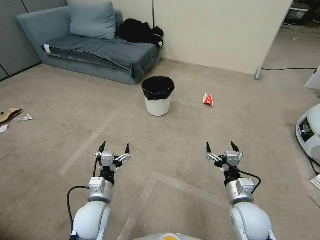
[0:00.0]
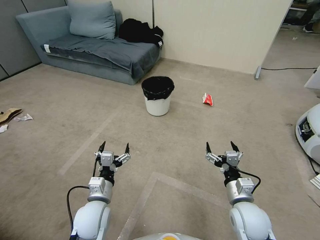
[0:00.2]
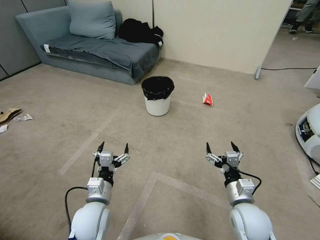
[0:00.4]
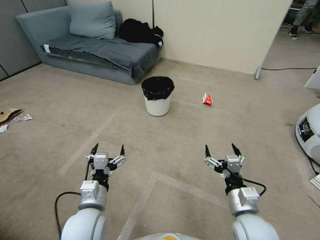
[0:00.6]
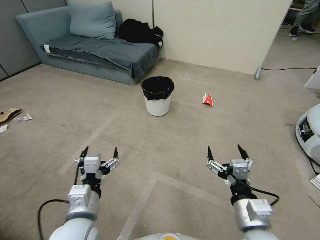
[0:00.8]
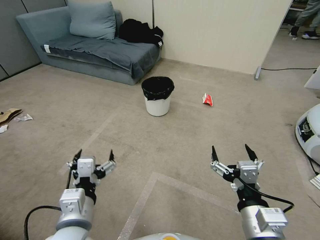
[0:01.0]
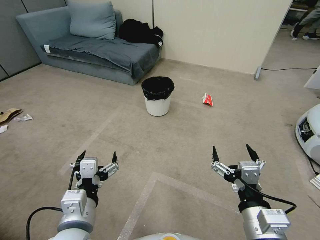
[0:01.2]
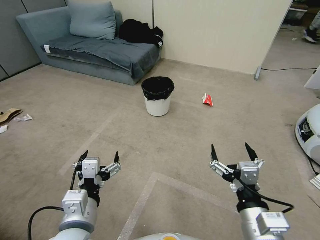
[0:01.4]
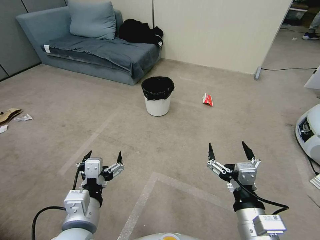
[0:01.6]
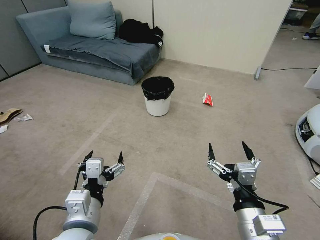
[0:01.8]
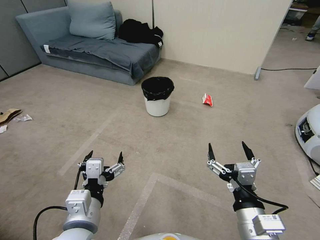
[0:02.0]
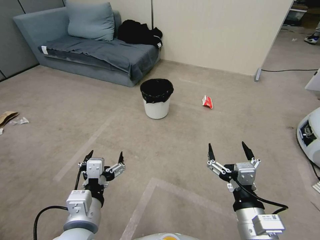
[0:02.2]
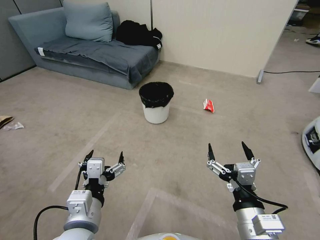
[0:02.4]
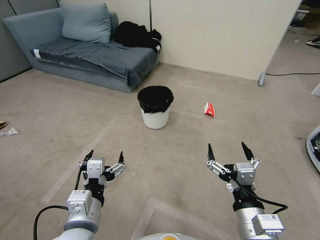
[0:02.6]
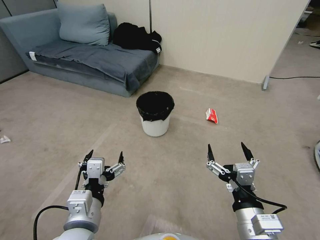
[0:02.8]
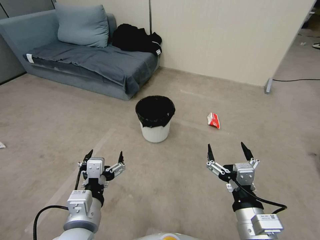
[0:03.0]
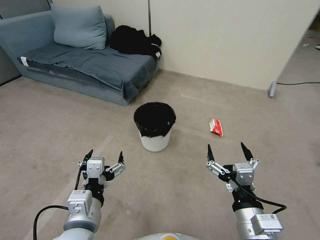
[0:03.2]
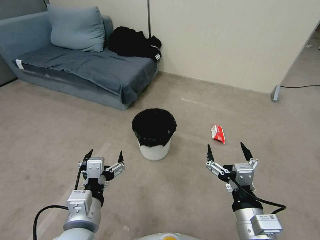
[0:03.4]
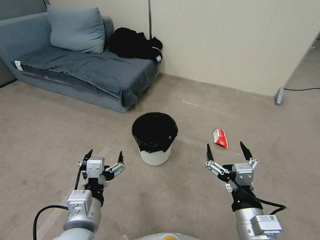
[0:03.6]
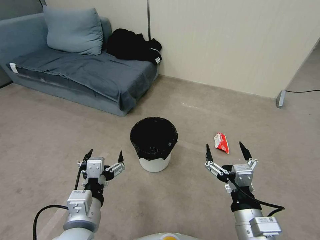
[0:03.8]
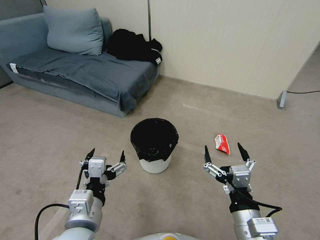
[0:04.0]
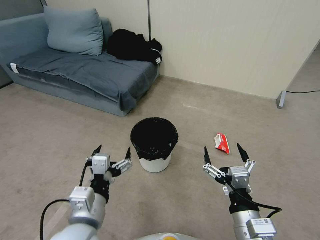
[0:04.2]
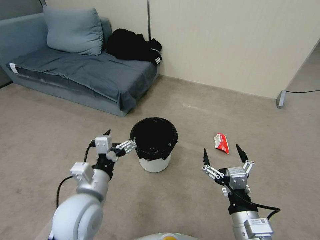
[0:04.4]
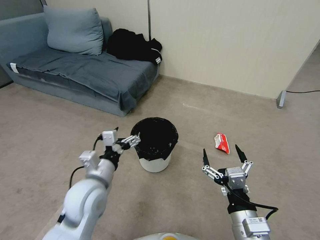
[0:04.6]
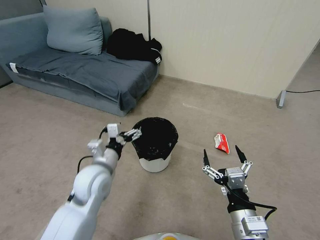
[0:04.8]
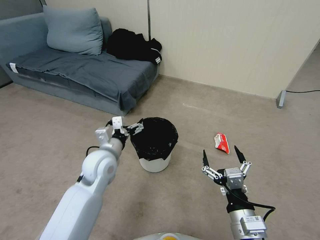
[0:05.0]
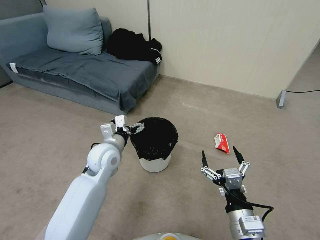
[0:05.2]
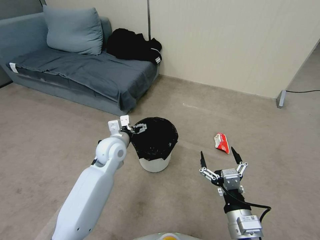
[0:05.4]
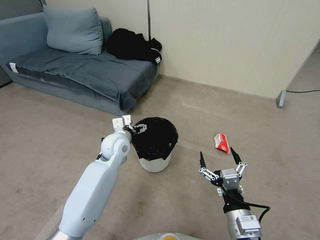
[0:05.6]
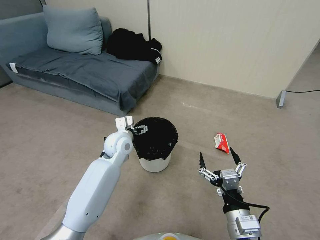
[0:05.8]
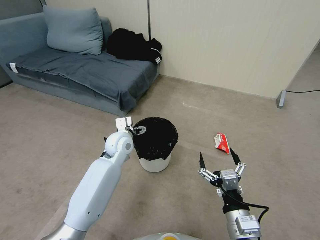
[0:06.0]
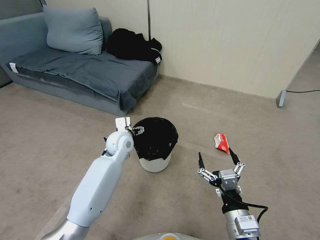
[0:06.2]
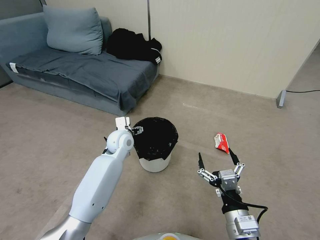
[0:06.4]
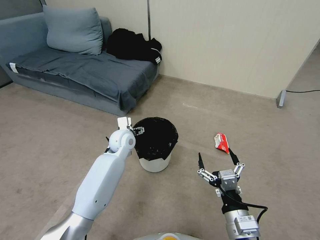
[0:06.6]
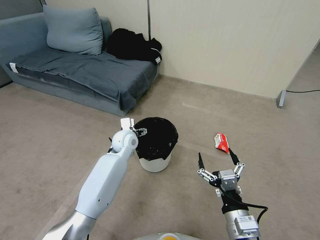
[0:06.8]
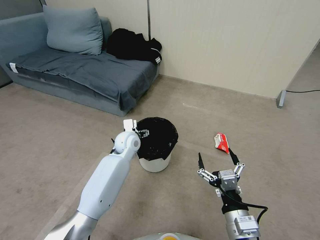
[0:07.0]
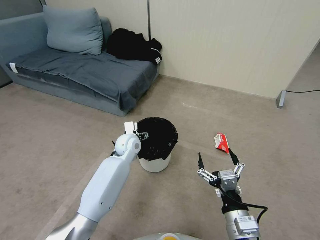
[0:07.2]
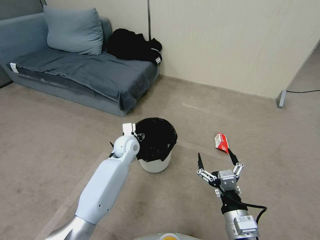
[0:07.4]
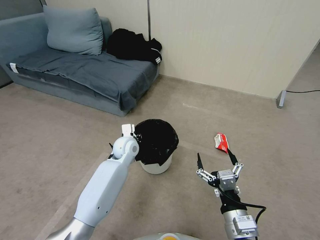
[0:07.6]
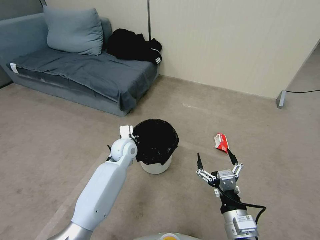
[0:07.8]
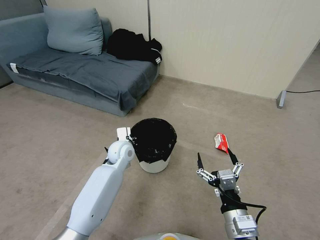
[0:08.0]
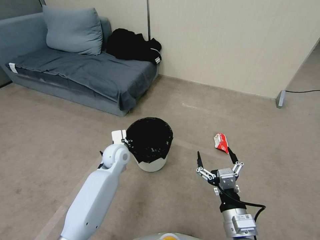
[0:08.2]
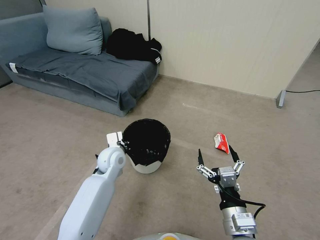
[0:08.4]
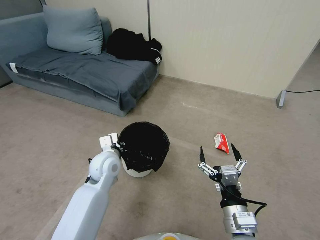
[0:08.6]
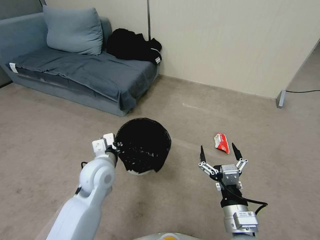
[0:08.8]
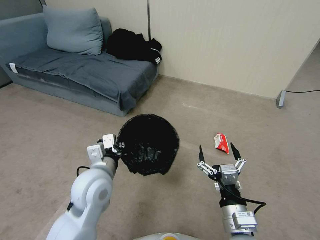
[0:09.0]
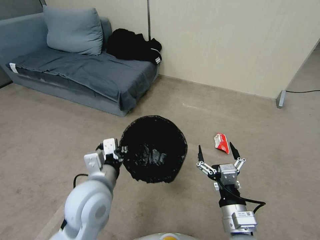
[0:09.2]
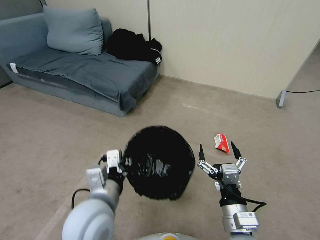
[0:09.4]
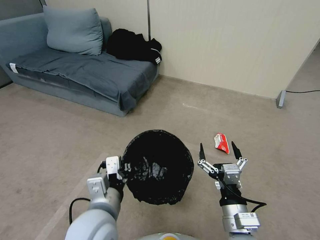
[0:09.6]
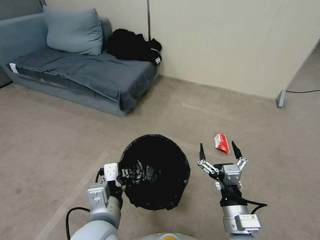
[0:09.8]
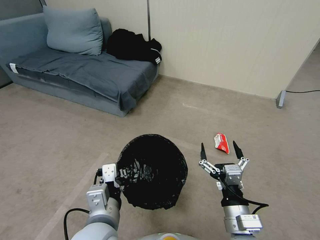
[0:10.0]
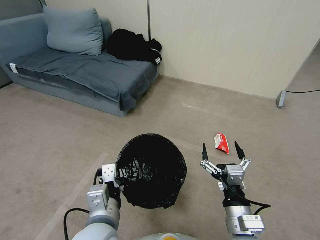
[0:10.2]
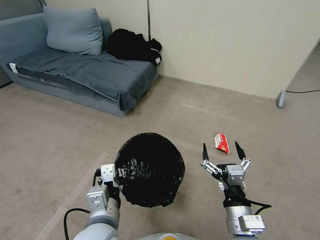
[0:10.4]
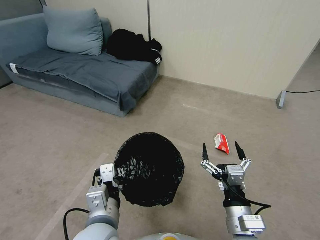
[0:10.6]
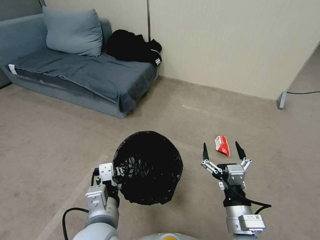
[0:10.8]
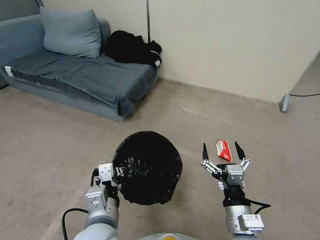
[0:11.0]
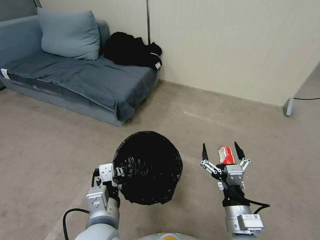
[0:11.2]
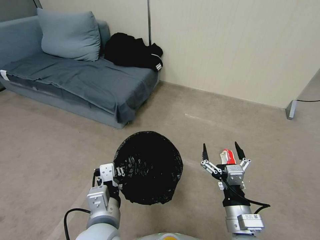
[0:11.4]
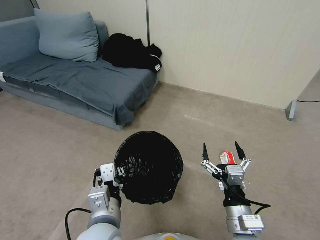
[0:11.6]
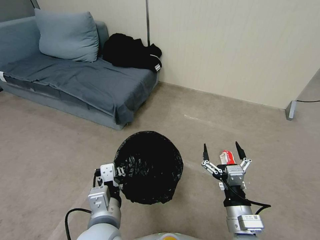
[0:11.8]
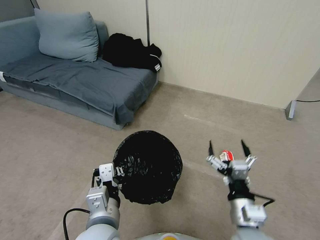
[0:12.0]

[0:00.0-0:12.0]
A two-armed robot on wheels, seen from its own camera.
Task of the whole recording: Pick up the trash bin, then pick up the garbage from the floor and place it into the trash bin.
0:03.0 to 0:04.4: The left gripper heads forward, covering approximately 5 cm.
0:04.4 to 0:06.0: The left gripper shifts approximately 25 cm forward.
0:06.0 to 0:07.6: The left gripper moves approximately 5 cm, and closes its fingers.
0:07.6 to 0:09.0: The left gripper heads backward and upward, covering approximately 20 cm, and closes its fingers.
0:09.0 to 0:10.4: The left gripper goes about 10 cm backward.
0:10.4 to 0:12.0: The grippers make only small movements.

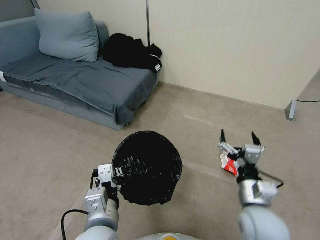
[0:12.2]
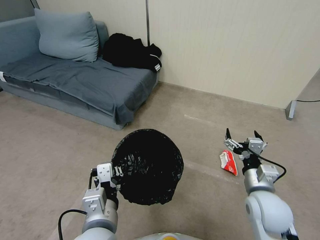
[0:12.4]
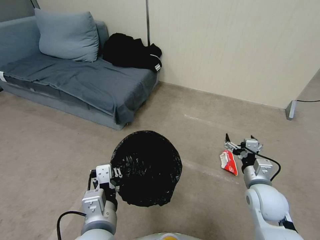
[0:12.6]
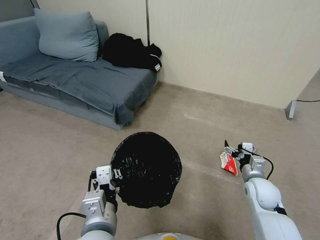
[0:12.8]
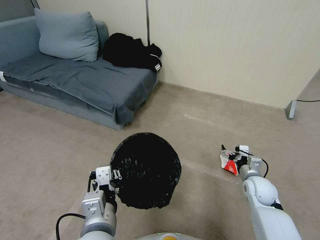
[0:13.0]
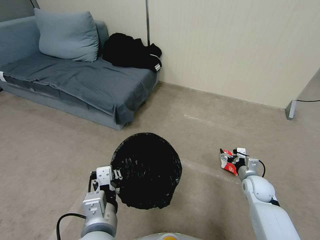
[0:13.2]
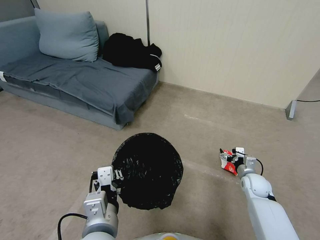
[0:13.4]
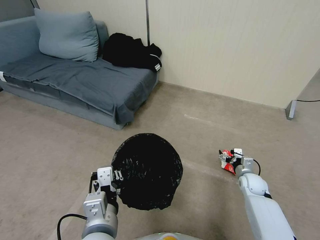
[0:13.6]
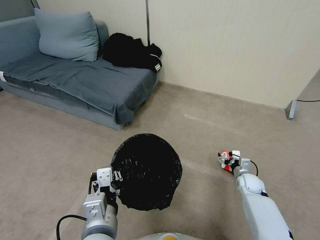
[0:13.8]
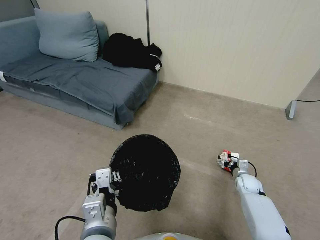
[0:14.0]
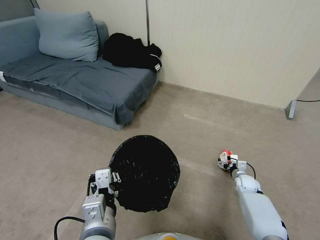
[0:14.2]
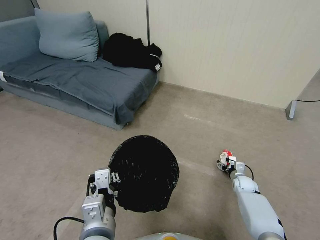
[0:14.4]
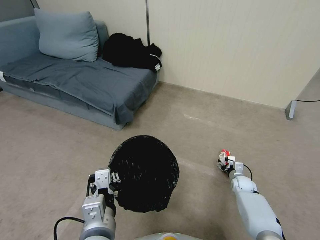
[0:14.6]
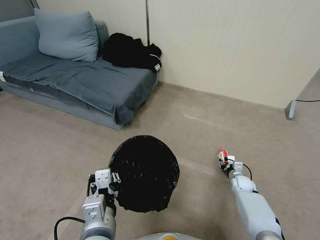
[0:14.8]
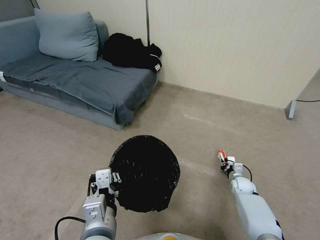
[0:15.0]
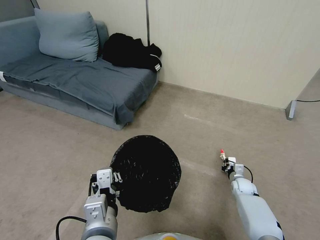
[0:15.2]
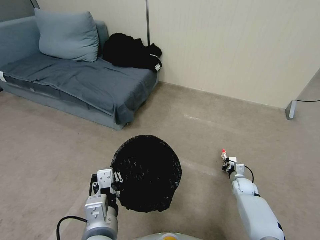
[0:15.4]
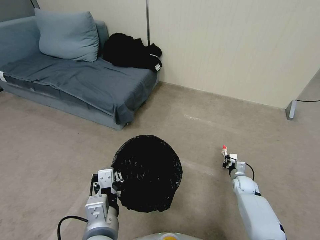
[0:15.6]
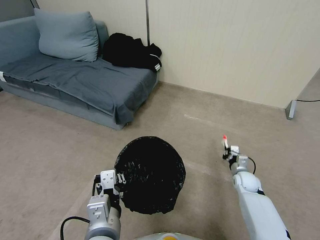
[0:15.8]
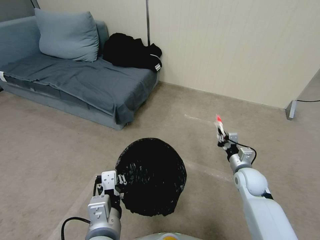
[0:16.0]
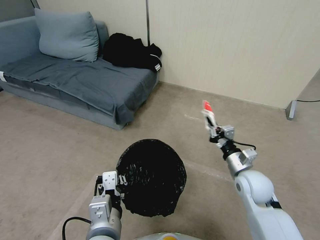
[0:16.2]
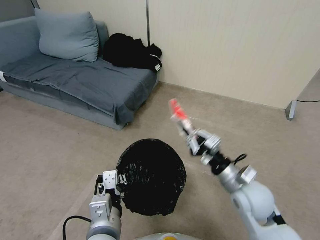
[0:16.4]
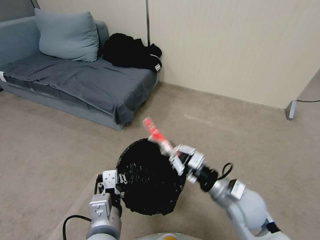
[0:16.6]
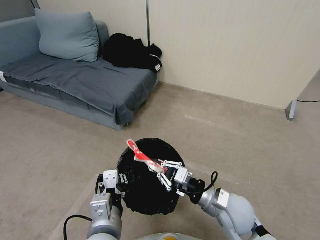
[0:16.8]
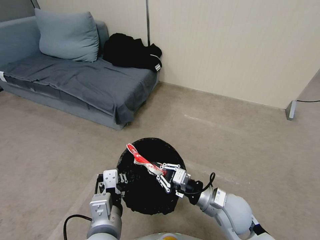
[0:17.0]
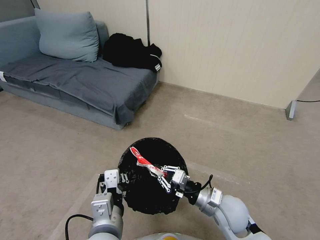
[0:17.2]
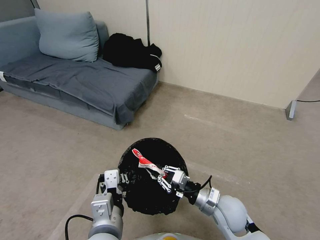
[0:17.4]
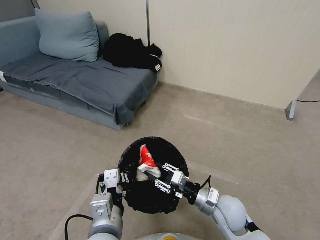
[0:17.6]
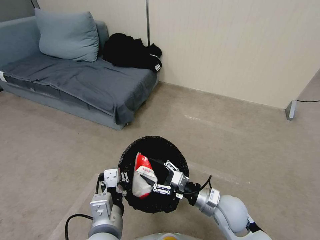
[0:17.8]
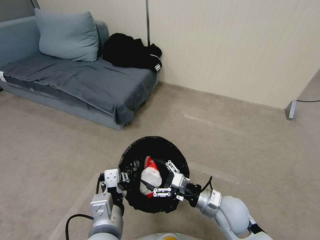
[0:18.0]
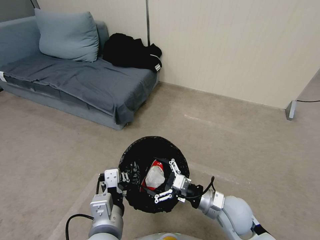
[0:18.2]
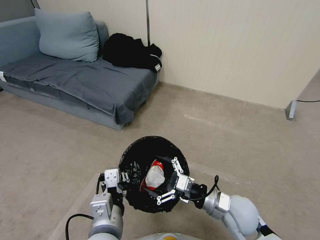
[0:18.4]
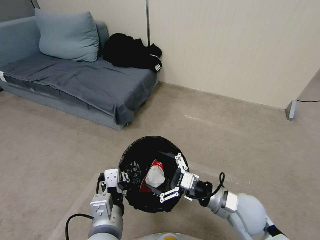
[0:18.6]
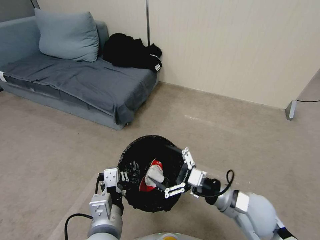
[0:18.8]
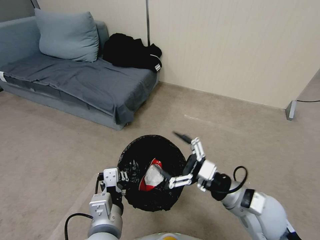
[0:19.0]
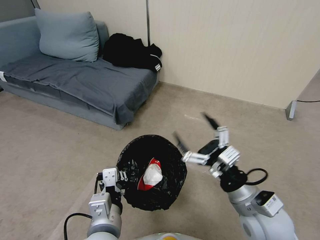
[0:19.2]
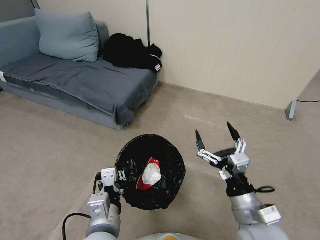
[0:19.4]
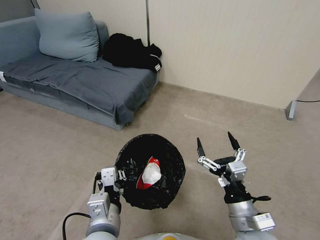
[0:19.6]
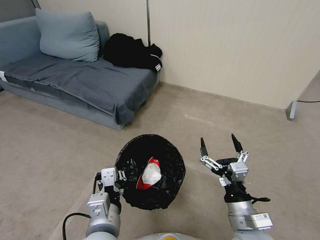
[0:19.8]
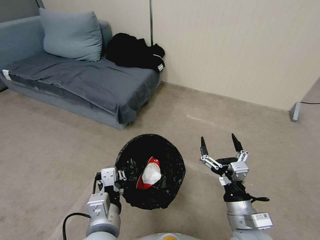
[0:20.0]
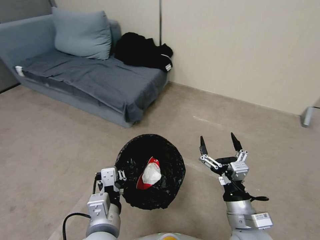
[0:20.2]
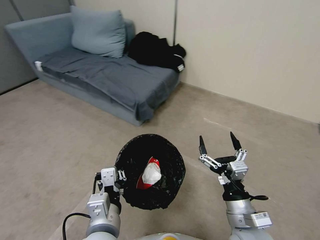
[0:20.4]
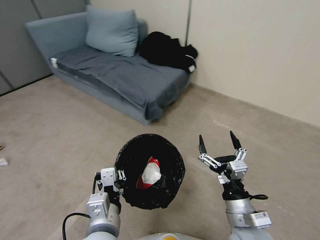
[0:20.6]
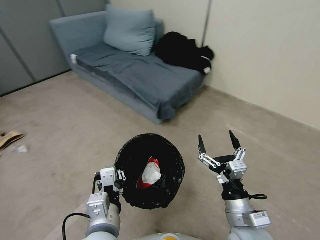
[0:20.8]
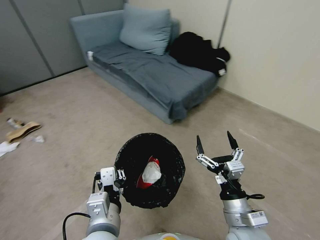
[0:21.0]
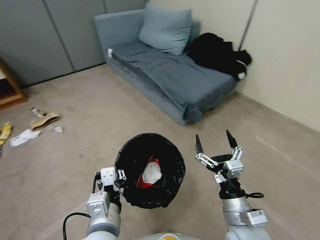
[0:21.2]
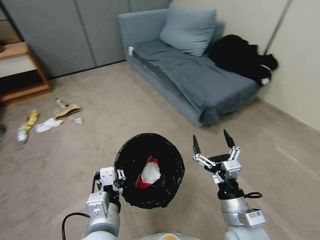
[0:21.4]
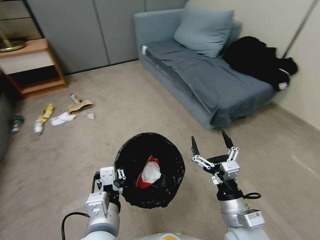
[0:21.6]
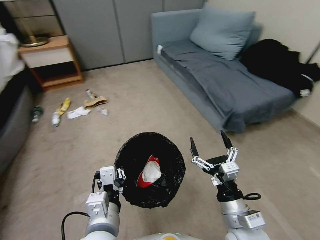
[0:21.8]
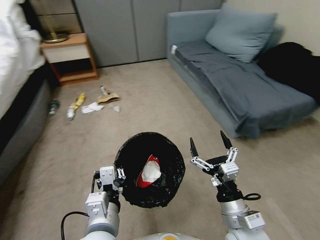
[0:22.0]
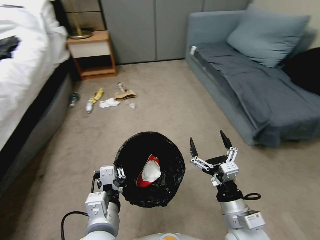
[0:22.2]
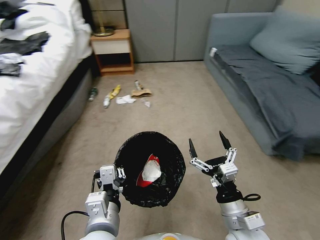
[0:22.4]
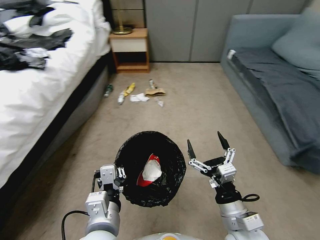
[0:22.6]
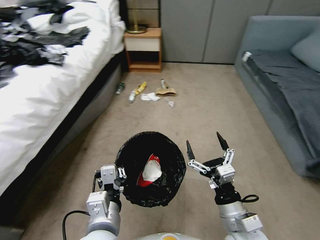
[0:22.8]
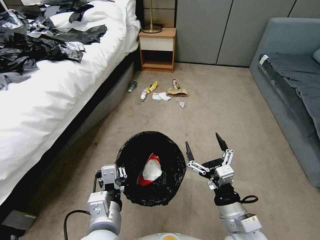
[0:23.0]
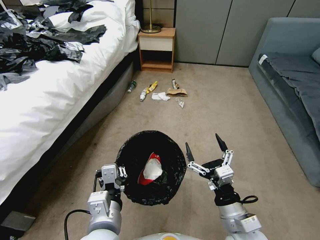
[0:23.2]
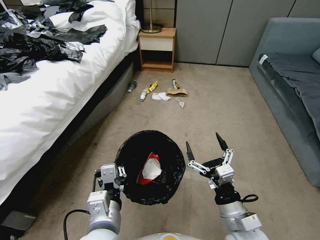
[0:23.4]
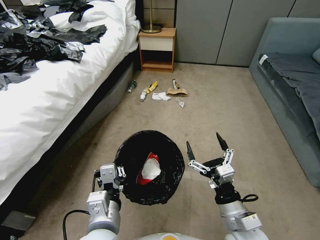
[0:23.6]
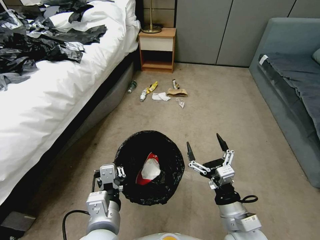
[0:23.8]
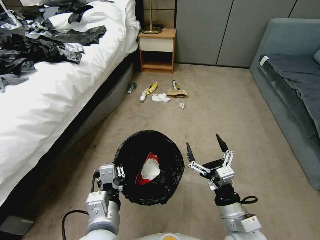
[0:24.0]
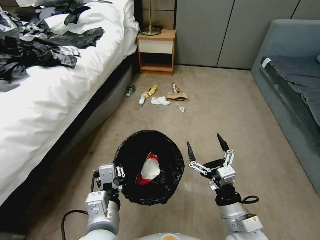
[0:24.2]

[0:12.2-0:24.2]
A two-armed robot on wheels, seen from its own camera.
Task of the whole recording: Pick up the trash bin, then pick up the garbage from the floor and place it into the trash bin.
0:12.2 to 0:13.8: The right gripper travels downward, forward and to the right by some 30 cm.
0:13.8 to 0:15.2: The right gripper moves downward, approximately 5 cm, and closes up.
0:15.2 to 0:16.6: The right gripper heads upward, to the left and backward, covering about 35 cm.
0:16.6 to 0:18.2: The right gripper moves downward, some 5 cm, and opens.
0:18.2 to 0:19.8: The right gripper goes roughly 10 cm backward.
